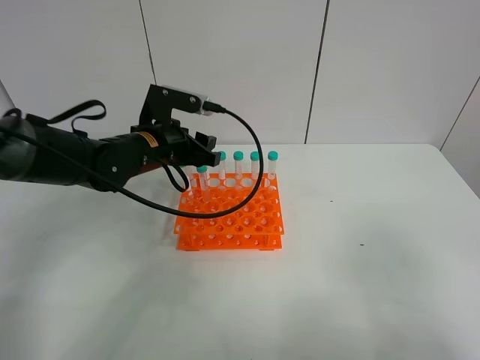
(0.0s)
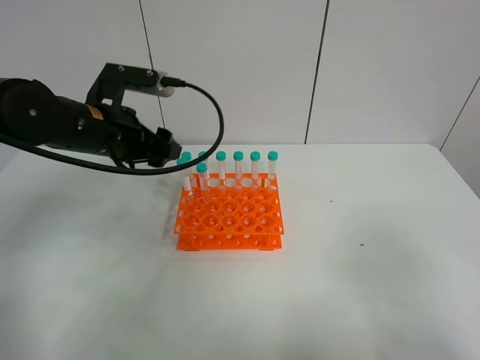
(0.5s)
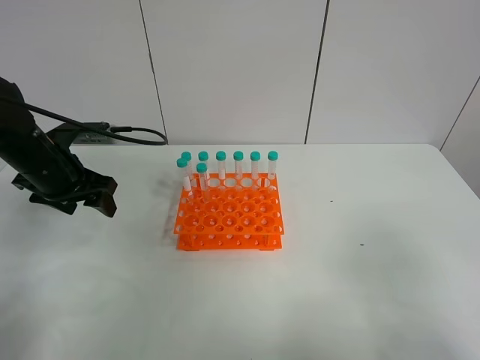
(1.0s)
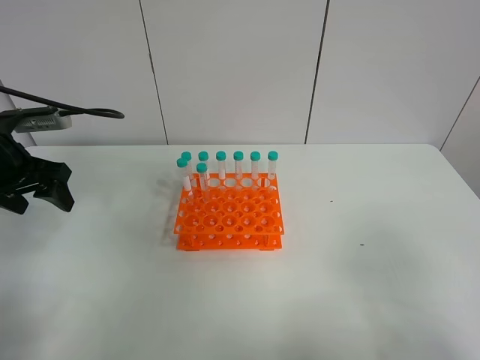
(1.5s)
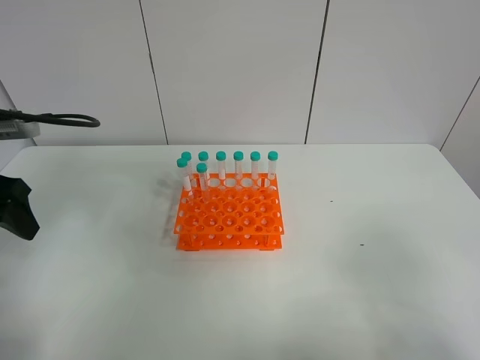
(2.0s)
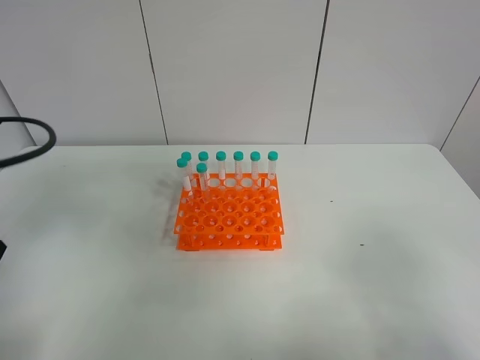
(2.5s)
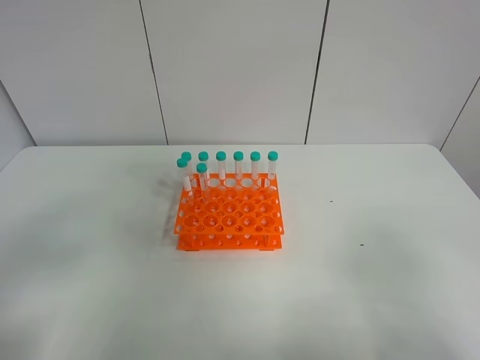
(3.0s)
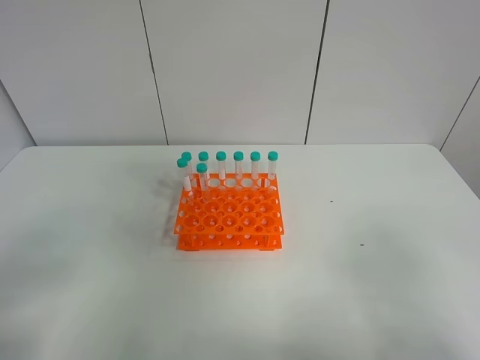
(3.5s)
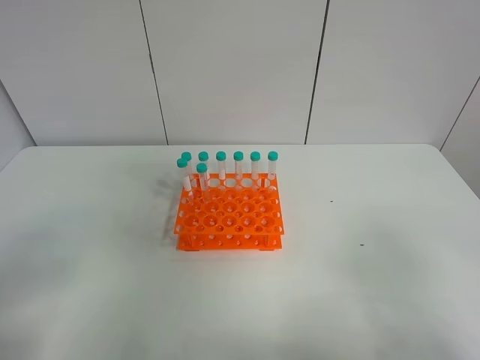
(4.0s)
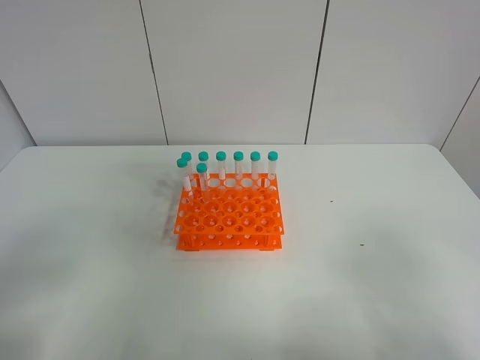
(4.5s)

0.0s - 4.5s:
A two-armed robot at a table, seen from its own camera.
Task of the whole recording: Put the test tube on the table back onto the test tube rack.
0.0s - 2.0s: The left gripper shifts some 20 cm to the left and backward.
2.0s - 4.5s: The left gripper moves backward, approximately 25 cm.
